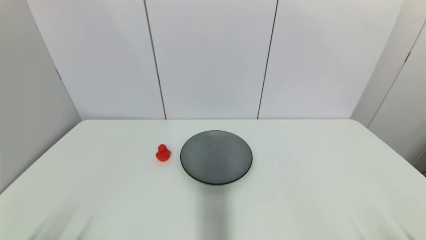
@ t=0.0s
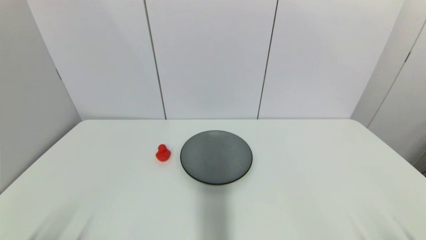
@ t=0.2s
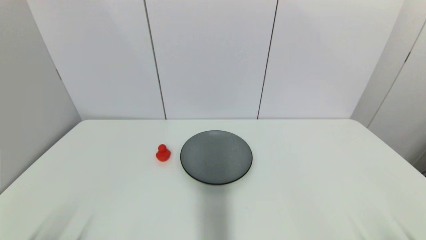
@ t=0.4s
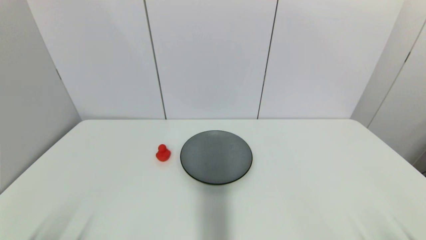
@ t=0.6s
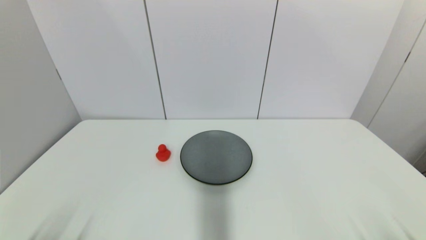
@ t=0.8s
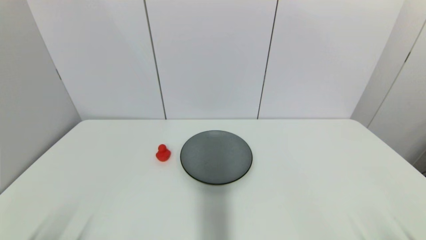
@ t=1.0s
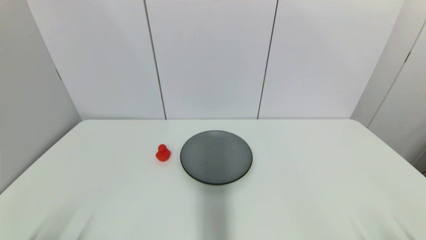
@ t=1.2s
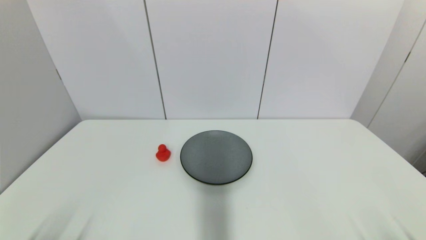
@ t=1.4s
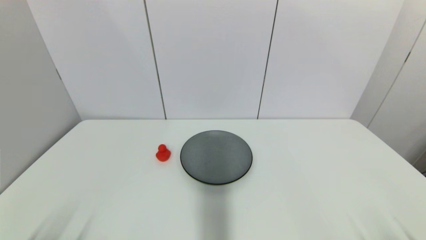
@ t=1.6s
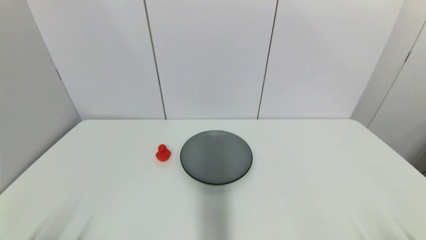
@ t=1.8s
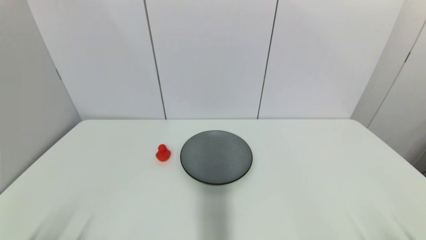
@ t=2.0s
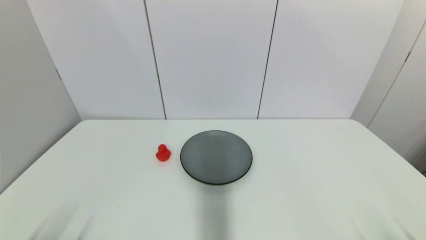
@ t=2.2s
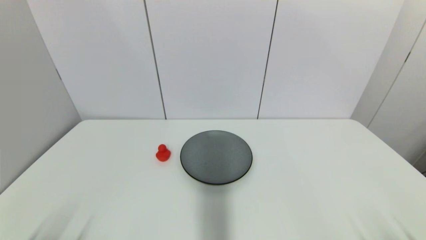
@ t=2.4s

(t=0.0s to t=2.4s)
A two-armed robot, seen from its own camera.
t=0.0s - t=2.4s: The two grippers keep their place.
